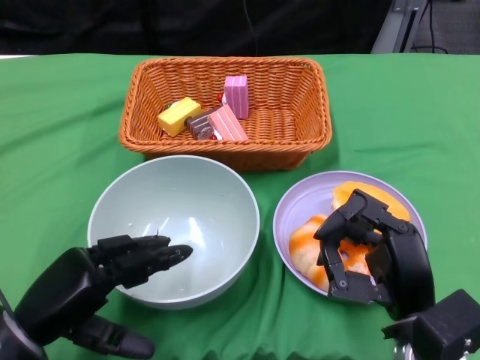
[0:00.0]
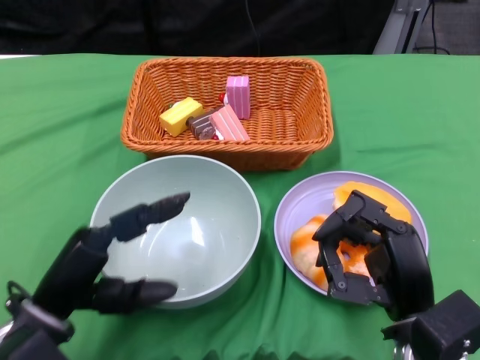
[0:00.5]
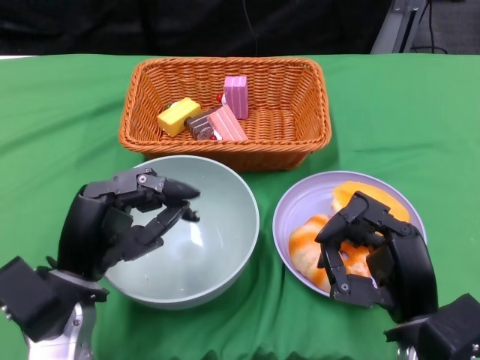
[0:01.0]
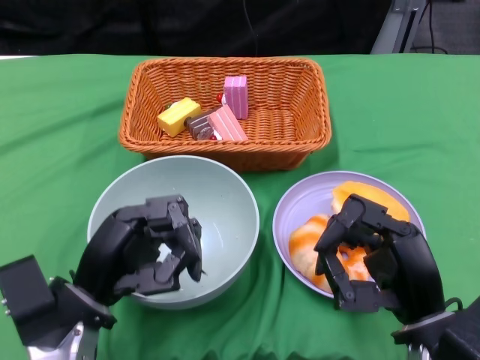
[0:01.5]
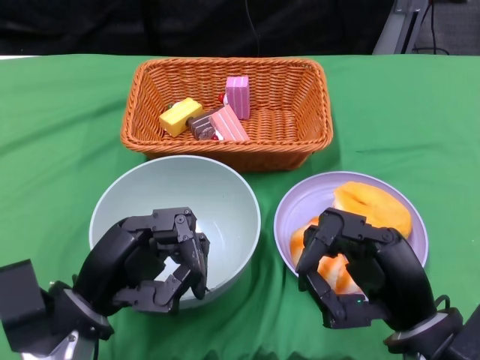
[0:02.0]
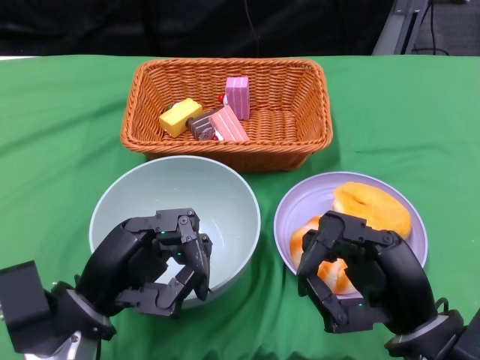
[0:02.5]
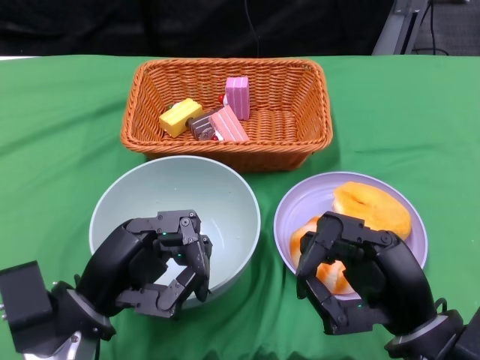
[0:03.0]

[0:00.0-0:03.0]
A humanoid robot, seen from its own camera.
0:00.0 to 0:01.5: The left hand shifts approximately 5 cm to the right.
0:01.5 to 0:03.0: The hands move only a little.
